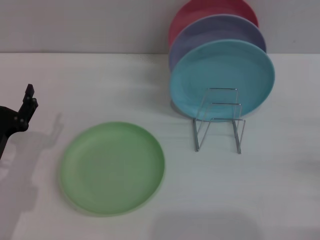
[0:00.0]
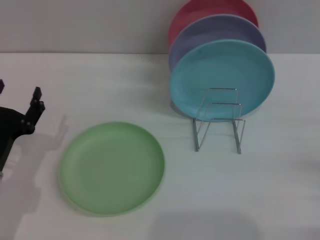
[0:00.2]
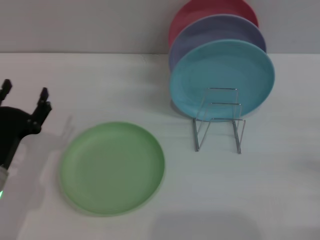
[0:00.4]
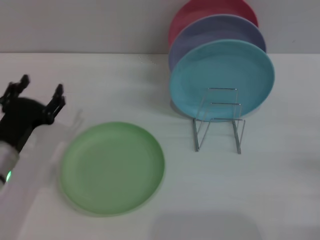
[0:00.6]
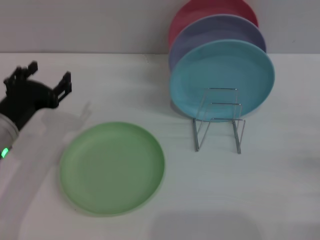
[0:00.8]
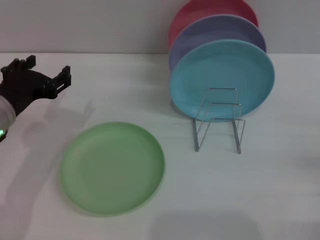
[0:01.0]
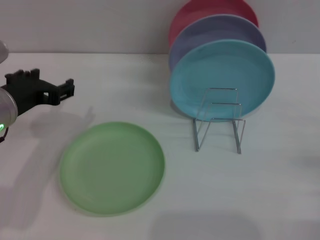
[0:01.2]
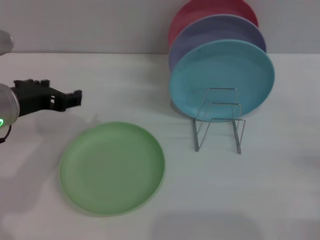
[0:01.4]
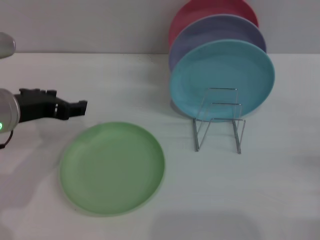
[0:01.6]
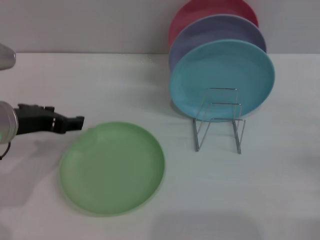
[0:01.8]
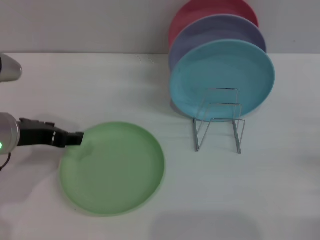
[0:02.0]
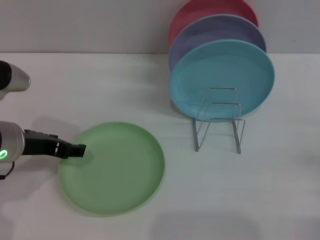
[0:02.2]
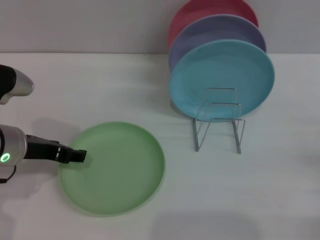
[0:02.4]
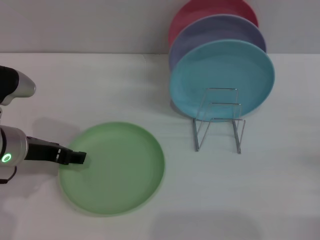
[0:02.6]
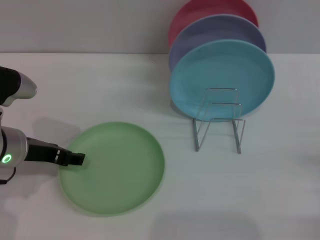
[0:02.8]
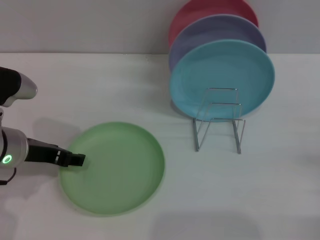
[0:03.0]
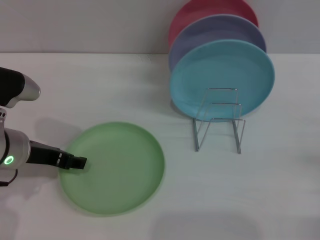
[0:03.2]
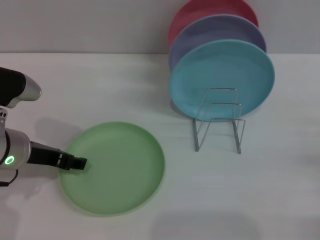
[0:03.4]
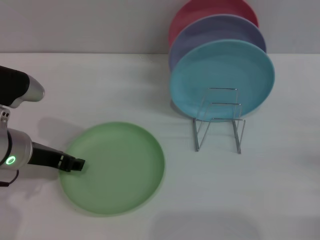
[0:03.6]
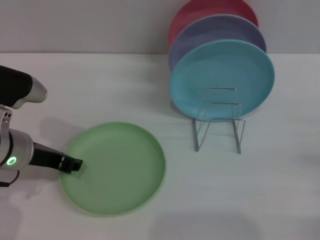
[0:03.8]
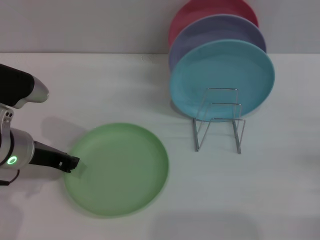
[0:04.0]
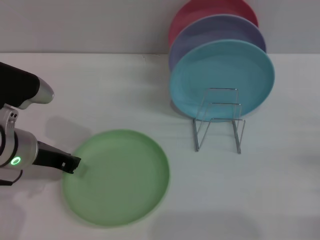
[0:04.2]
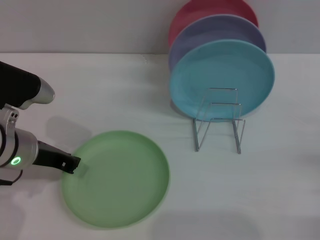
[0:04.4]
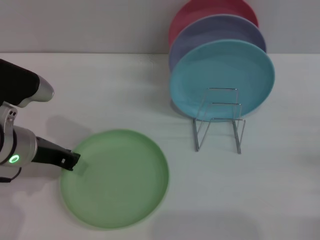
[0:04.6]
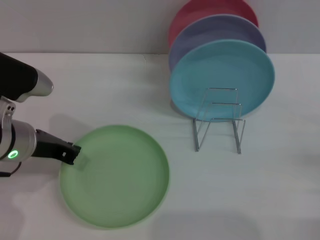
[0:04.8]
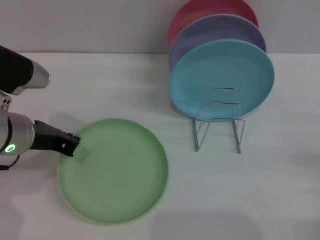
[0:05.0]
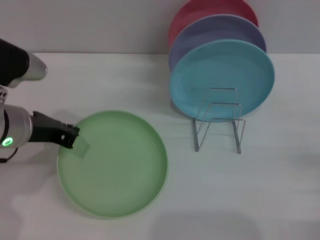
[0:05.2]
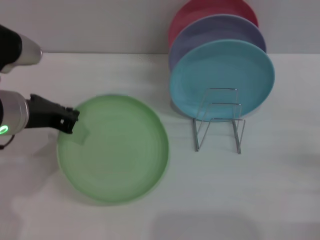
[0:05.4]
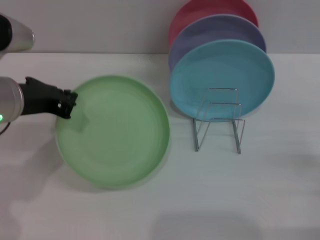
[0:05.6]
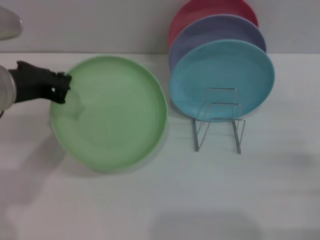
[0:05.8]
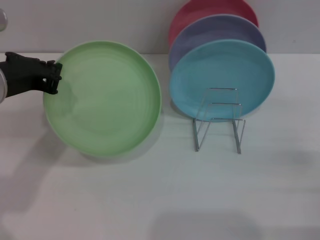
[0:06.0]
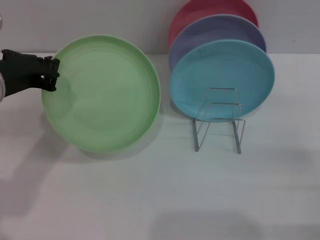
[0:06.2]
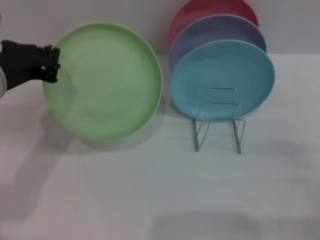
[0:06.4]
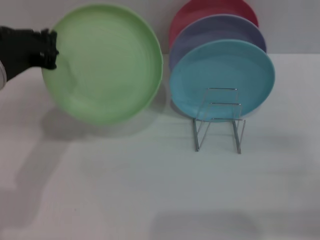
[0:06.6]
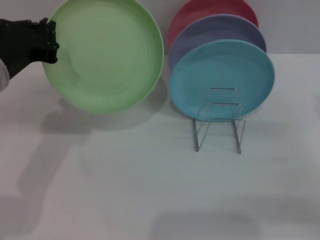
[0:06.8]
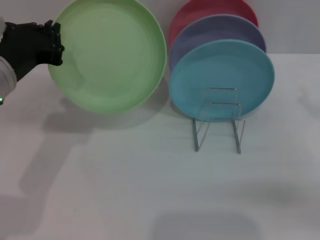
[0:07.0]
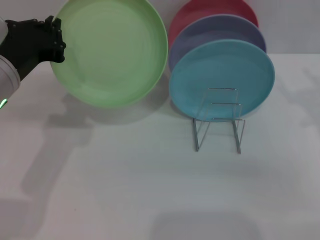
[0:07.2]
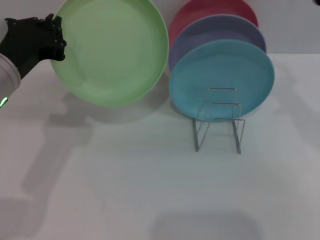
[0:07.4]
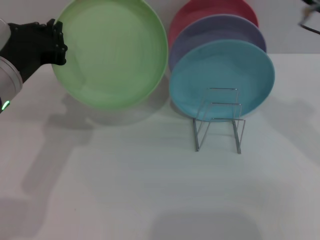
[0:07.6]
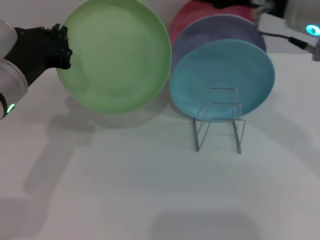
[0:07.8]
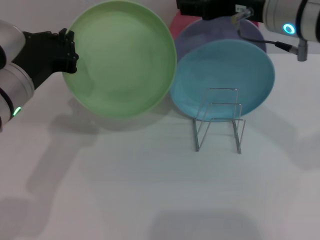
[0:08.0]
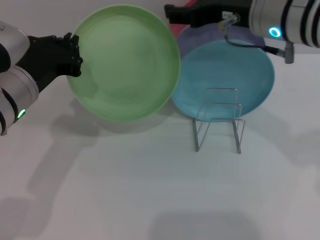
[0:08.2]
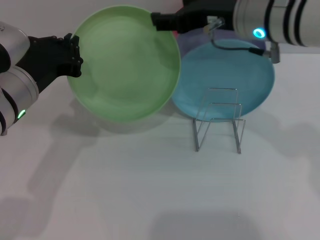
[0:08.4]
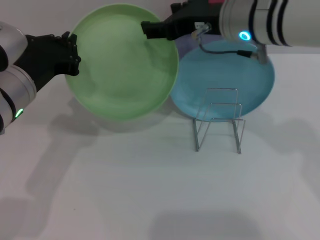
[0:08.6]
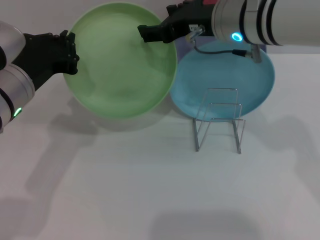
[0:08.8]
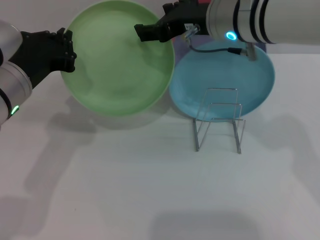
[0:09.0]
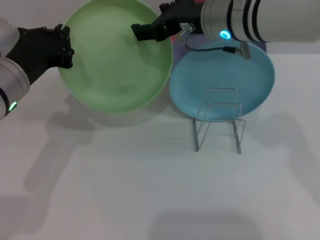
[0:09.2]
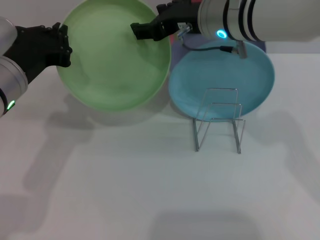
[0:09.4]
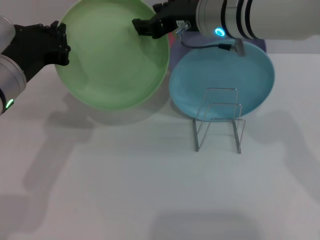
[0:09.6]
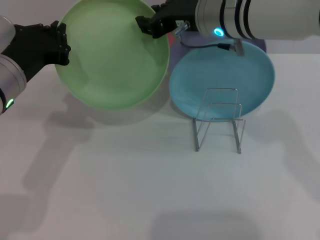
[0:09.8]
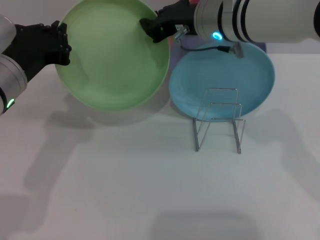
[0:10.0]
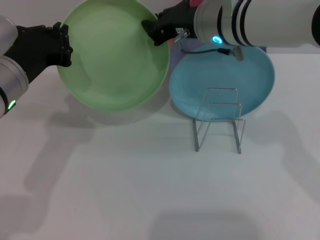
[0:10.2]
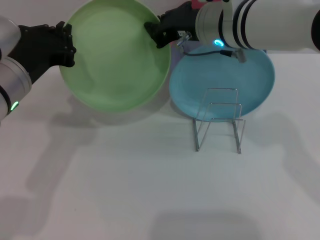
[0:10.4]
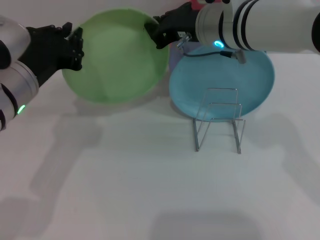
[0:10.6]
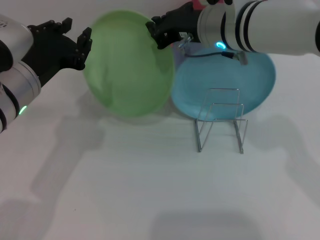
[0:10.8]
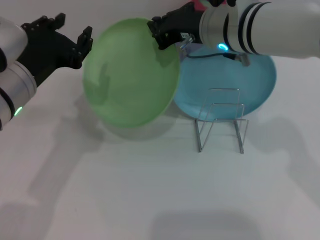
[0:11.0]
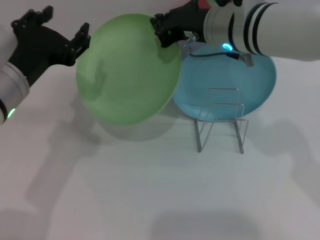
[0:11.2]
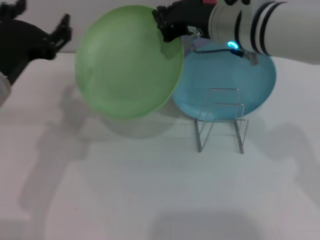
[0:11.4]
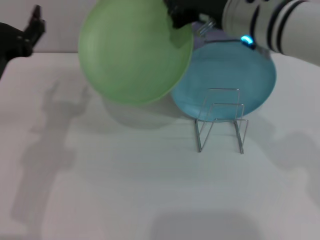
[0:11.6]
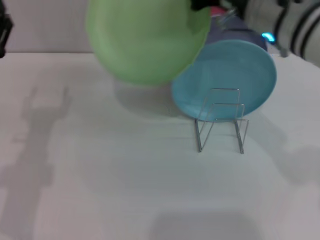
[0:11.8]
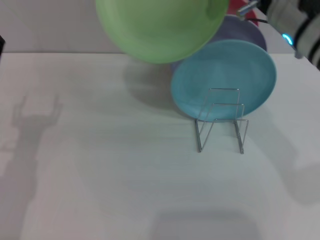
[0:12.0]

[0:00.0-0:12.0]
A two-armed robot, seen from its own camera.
Task of the whole recording: Grip the plate with one hand, pass it to the other, then set it on the shelf.
Step, 0:00.0 to 0:05.8: Pick up the plate with the left gripper.
Step, 0:06.0 to 0:11.2: Pass the plate from the left gripper to the right gripper.
0:00.0 to 0:01.6: The left gripper travels upward and forward by about 15 cm.
0:01.6 to 0:03.0: The left gripper travels downward by some 5 cm.
0:03.0 to 0:04.4: The left gripper closes up.
0:04.4 to 0:06.0: The left gripper is displaced upward by approximately 10 cm.
0:06.0 to 0:07.6: The right gripper goes some 30 cm upward, to the left and forward.
0:07.6 to 0:09.0: The right gripper is displaced to the left and forward by some 15 cm.
0:09.0 to 0:10.4: The right gripper closes its fingers.
0:10.4 to 0:12.0: The right gripper shifts approximately 10 cm backward and to the right; the left gripper heads downward and to the left, covering some 10 cm, and opens up.

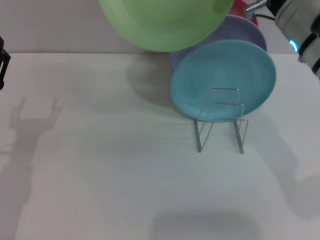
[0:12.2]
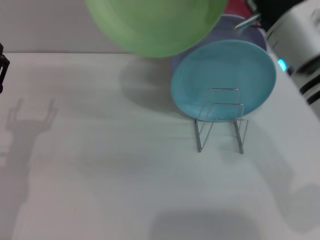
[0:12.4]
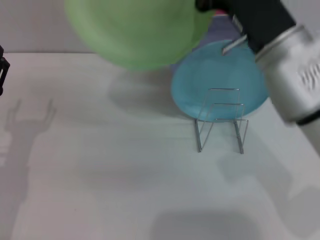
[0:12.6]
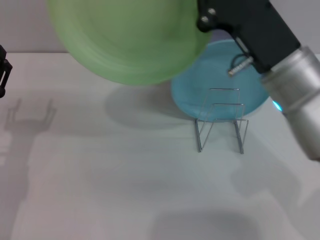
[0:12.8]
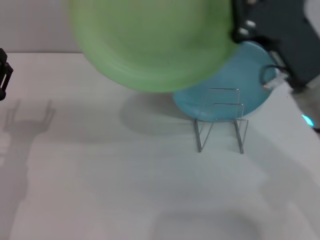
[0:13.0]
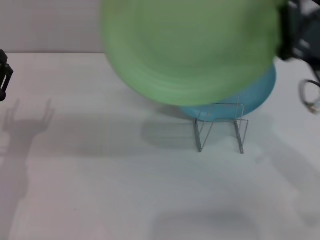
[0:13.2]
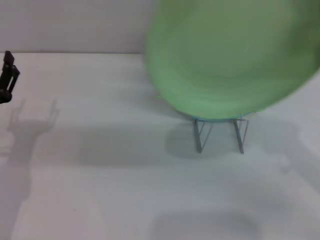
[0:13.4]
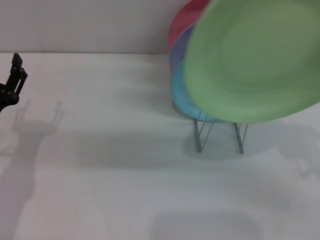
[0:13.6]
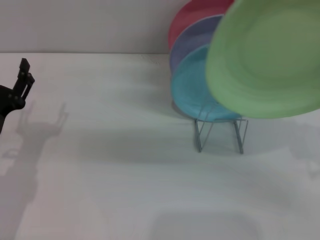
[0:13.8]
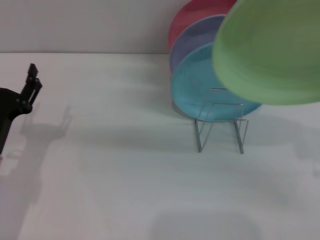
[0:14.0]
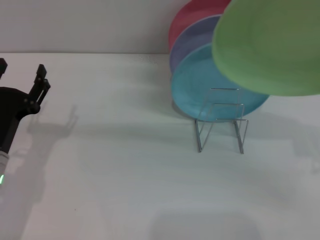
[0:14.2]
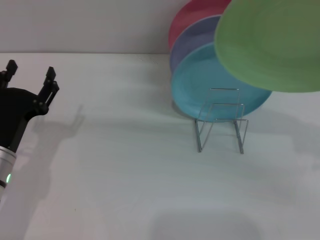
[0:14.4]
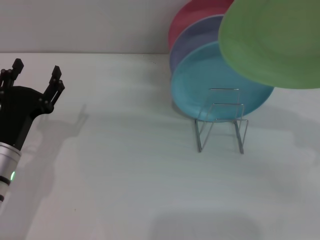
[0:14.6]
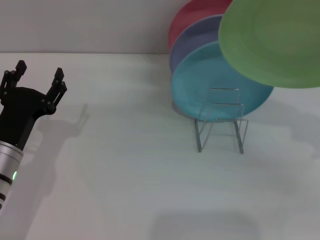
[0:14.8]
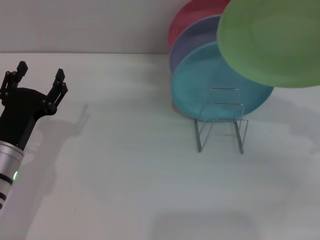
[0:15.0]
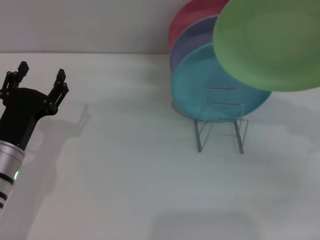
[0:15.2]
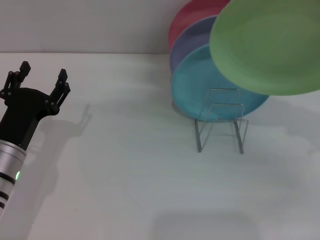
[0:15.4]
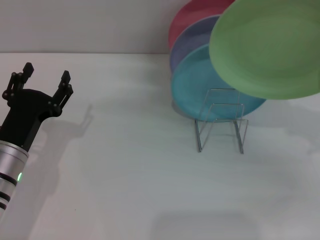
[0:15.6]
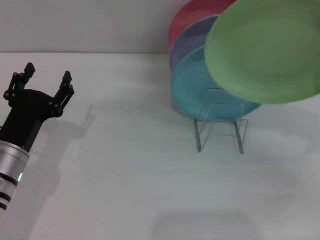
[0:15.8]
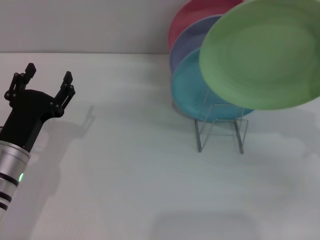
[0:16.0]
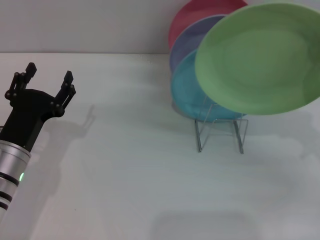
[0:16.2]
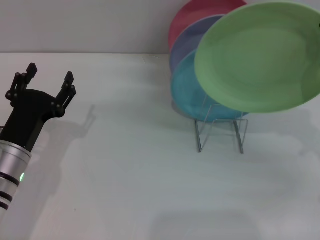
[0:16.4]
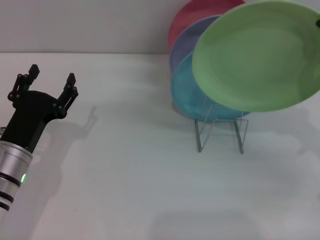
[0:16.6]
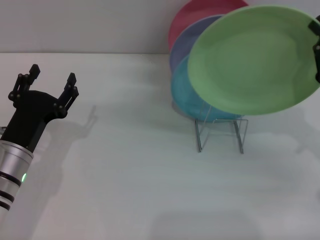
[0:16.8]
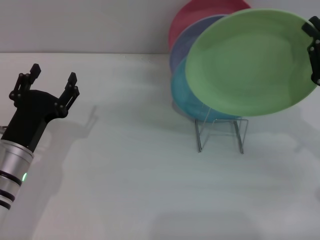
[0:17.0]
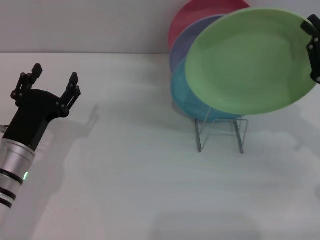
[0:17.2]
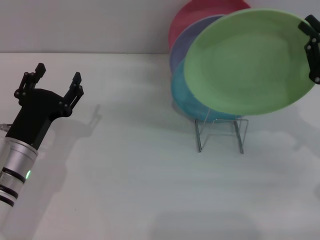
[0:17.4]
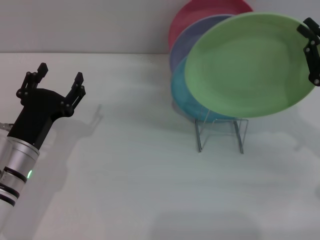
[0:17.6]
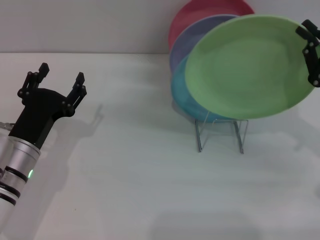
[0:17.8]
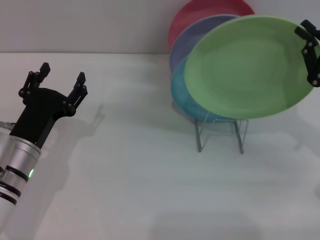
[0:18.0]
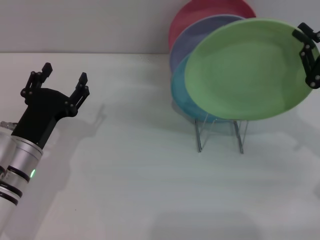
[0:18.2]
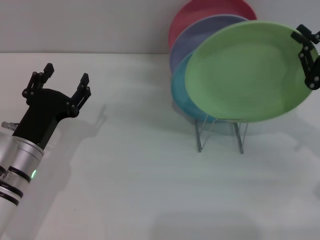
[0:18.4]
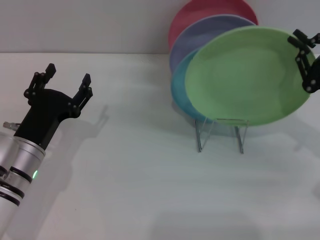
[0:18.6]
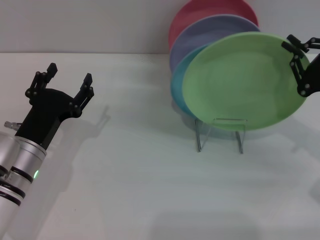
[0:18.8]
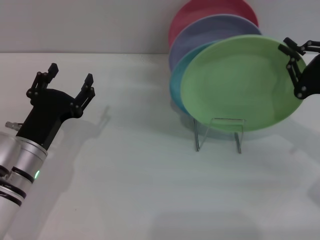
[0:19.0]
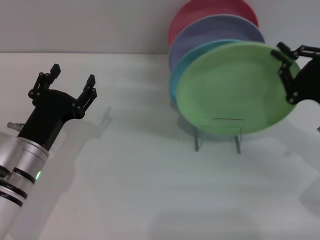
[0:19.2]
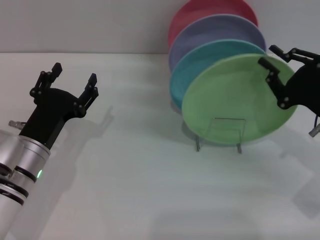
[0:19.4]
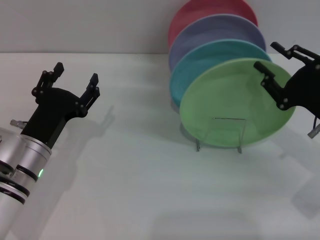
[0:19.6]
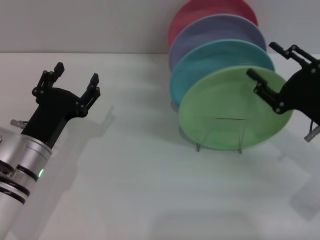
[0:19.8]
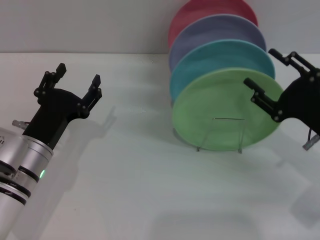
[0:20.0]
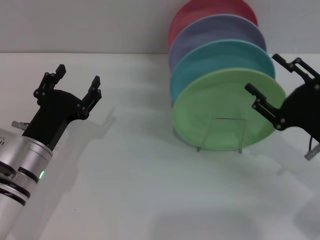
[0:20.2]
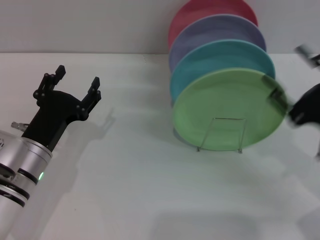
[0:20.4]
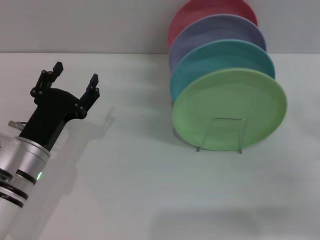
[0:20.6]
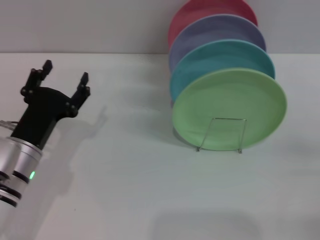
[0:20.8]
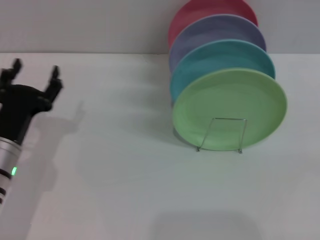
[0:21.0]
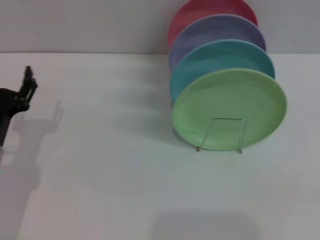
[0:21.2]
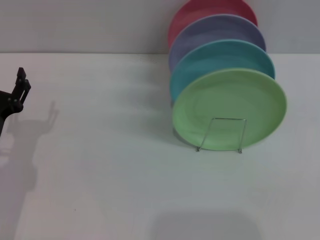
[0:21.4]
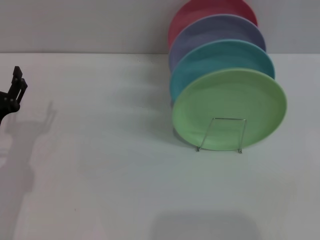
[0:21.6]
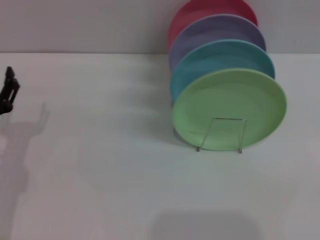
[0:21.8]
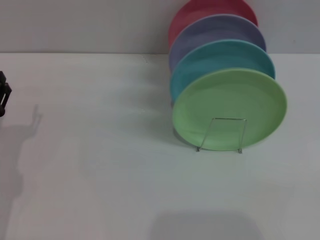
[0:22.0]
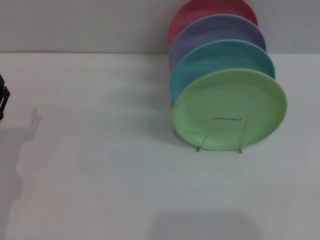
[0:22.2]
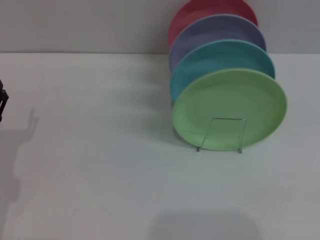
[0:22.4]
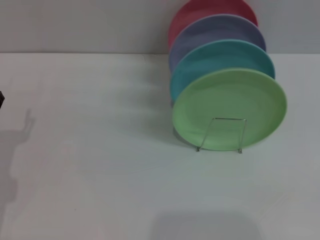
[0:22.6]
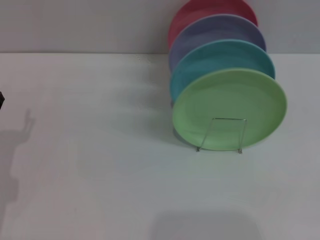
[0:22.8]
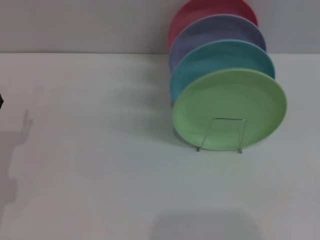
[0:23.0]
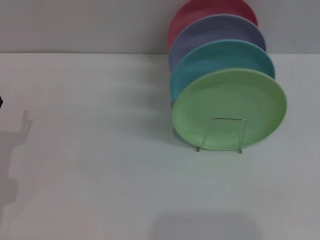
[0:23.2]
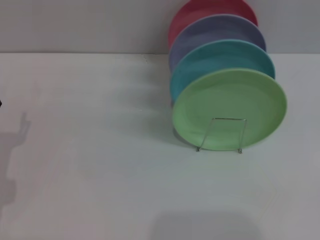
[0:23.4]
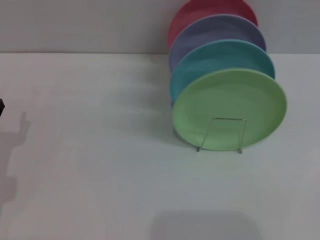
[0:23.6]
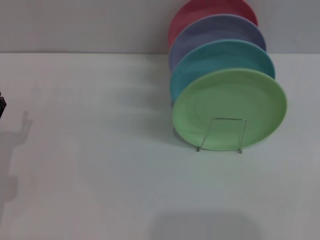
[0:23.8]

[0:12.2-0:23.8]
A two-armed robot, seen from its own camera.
Task of the whole recording: Grip the plate with one hand, pass it to the other, then set it on the shelf.
Step, 0:12.2 to 0:20.2: Place the plate on the shelf with the right gripper.
0:12.2 to 0:13.6: The right gripper is displaced to the right, downward and backward by roughly 20 cm.
0:15.0 to 0:18.0: The grippers stay close to where they were, moving slightly.
0:18.0 to 0:19.4: There are only small adjustments of the grippers.
0:19.4 to 0:21.0: The right gripper moves backward and to the right, approximately 20 cm, and opens.
0:21.0 to 0:22.4: The left gripper shifts approximately 5 cm to the left.
0:22.4 to 0:23.8: Both grippers stay put.
